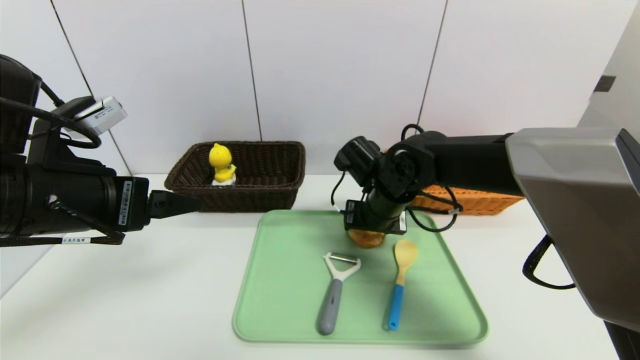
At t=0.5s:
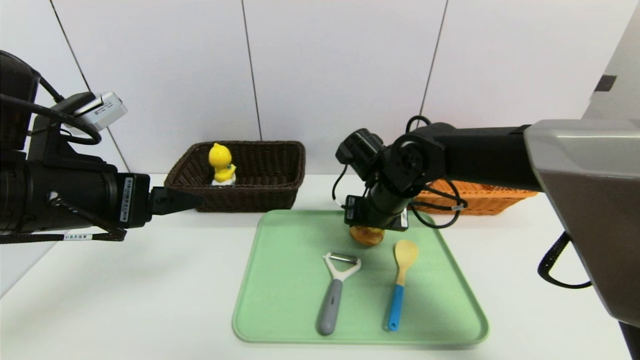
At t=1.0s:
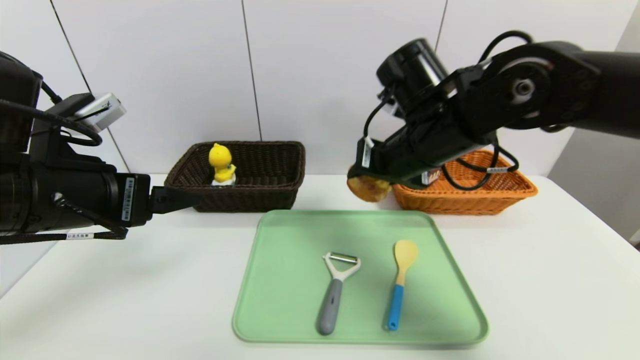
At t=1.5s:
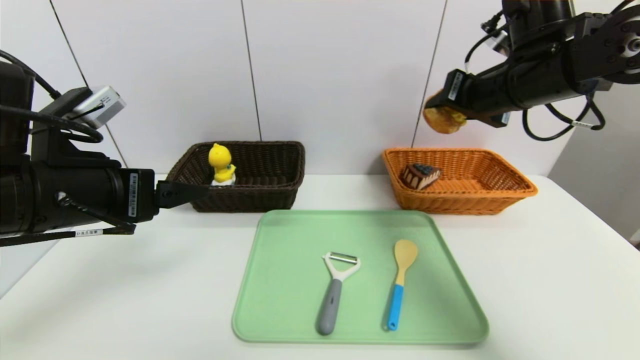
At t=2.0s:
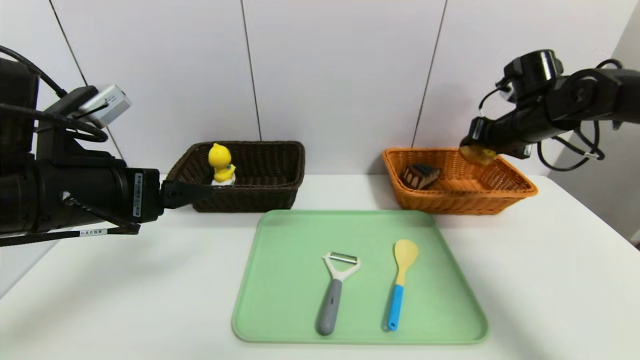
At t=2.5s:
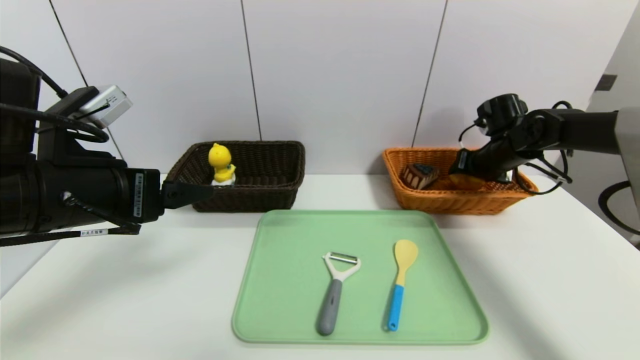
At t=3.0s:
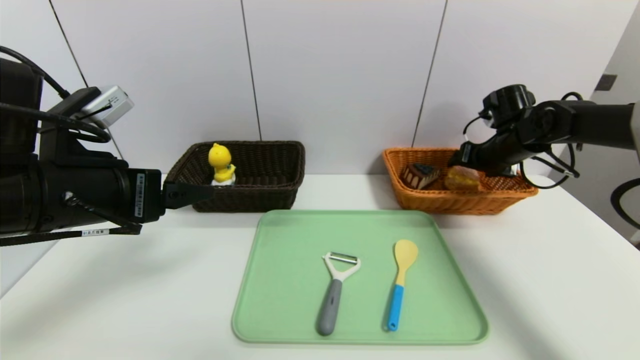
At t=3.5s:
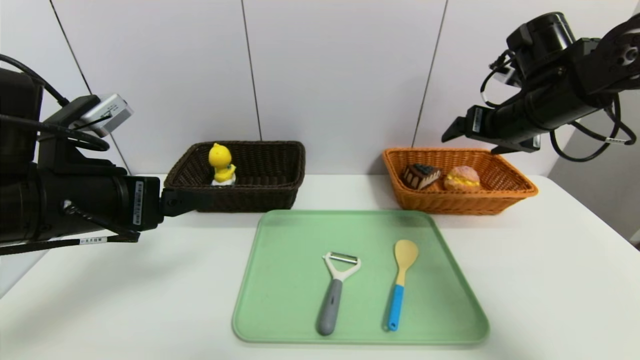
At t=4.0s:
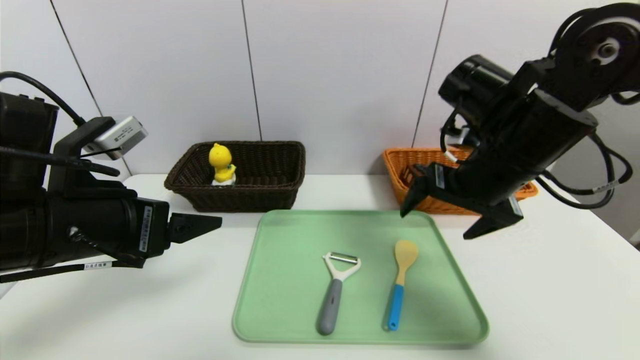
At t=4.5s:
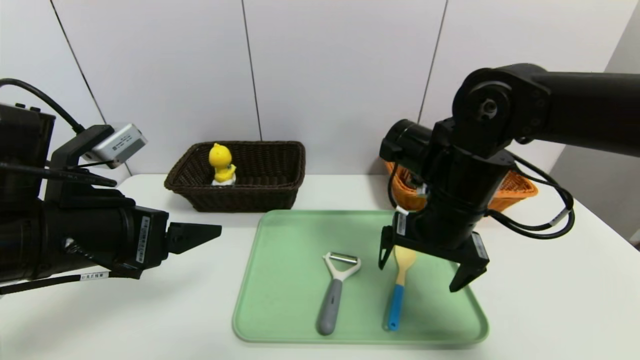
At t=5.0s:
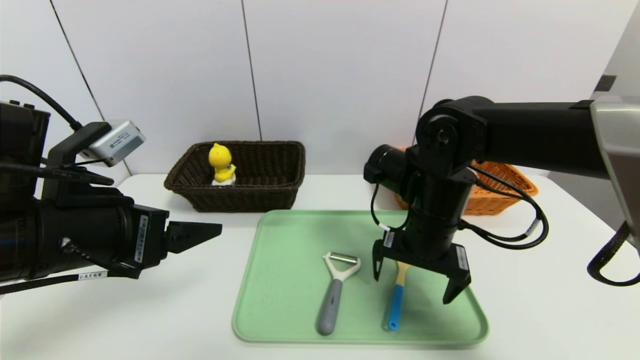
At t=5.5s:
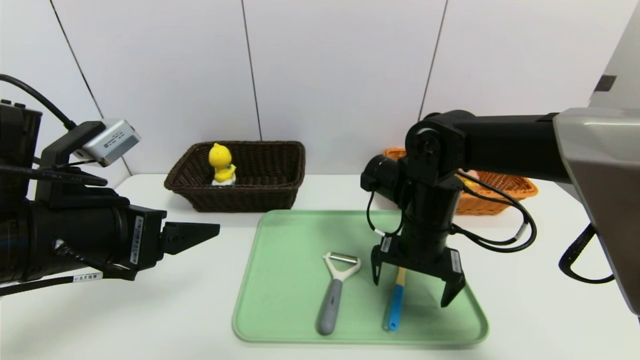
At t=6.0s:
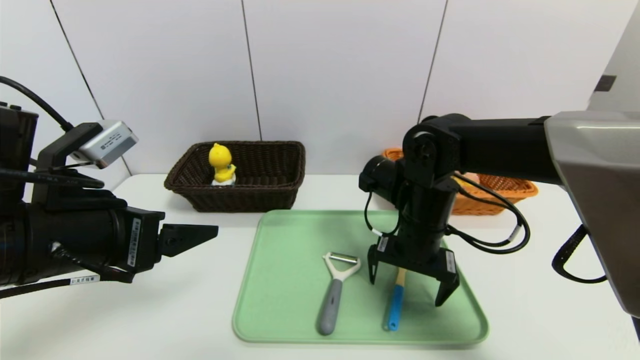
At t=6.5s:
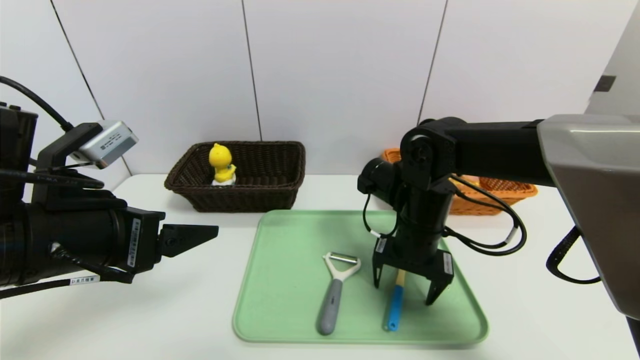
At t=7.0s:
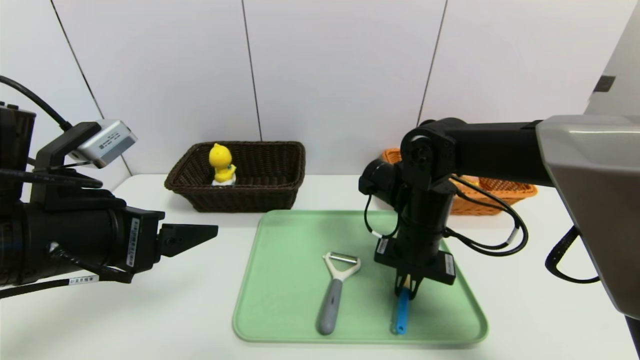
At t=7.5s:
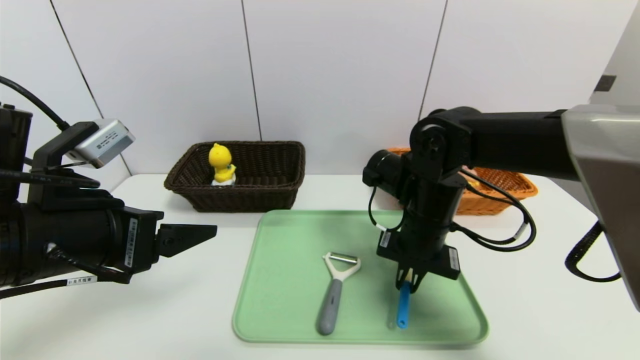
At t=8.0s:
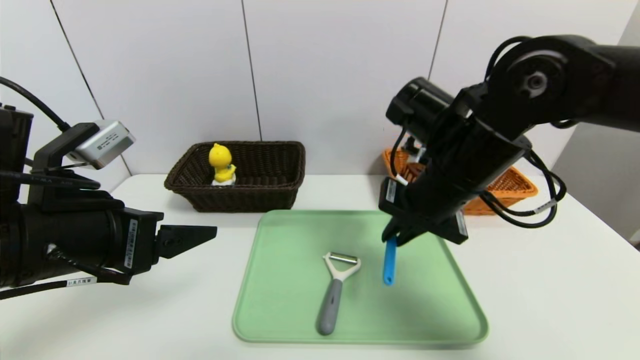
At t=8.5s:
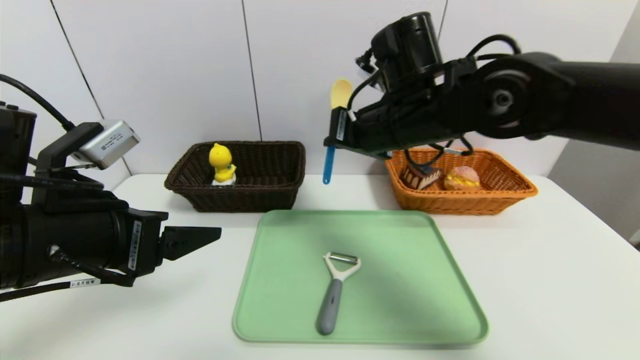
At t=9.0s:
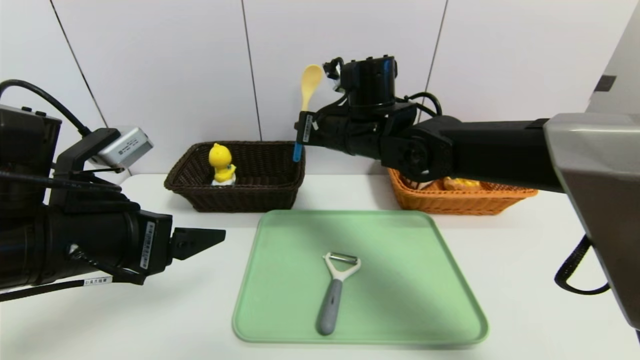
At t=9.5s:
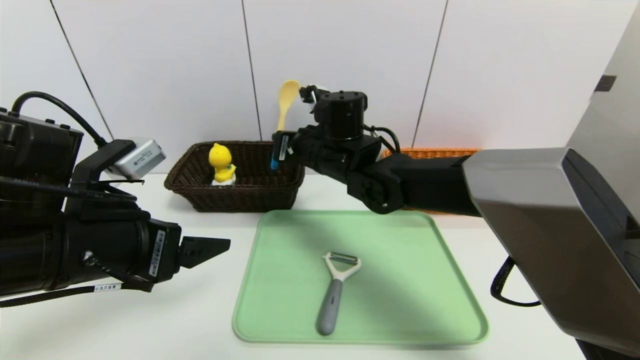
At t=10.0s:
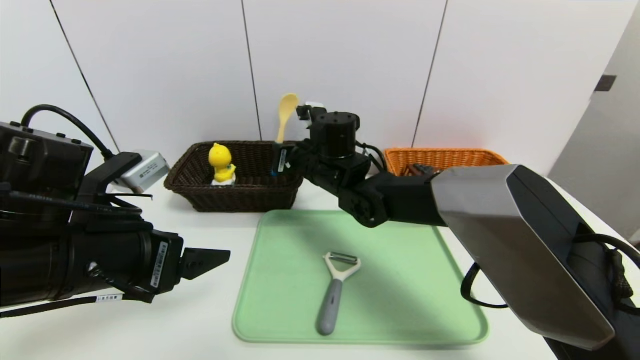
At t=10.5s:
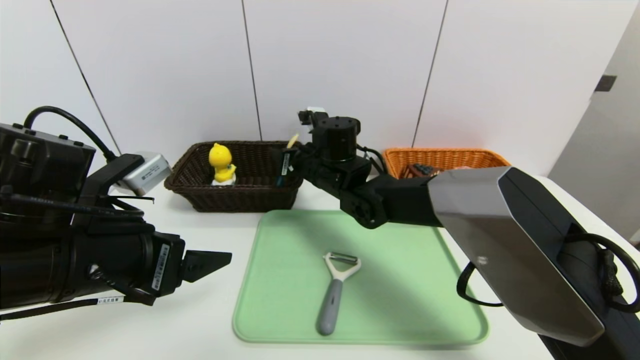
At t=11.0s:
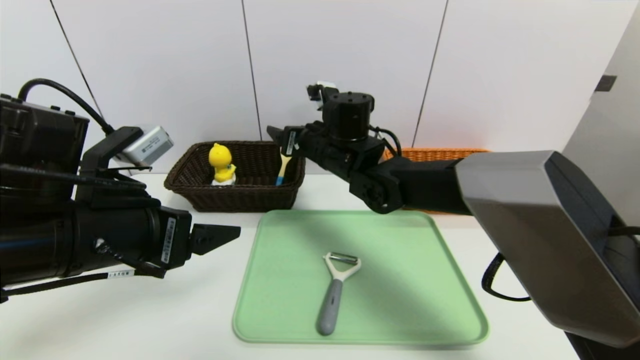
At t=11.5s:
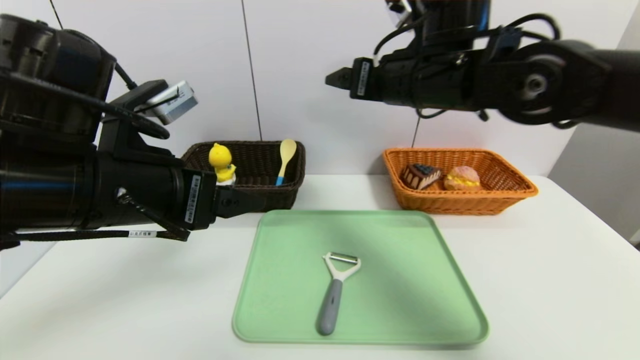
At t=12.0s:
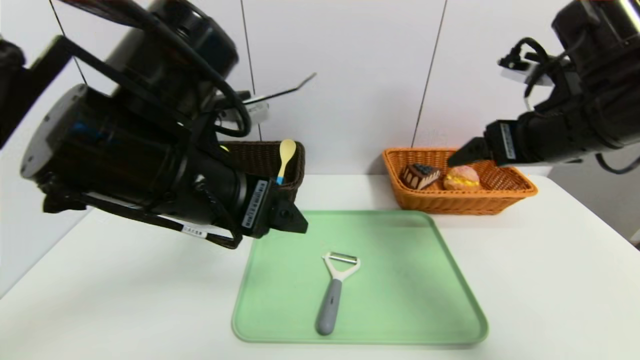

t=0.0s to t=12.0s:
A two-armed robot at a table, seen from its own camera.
Task of the whole recording: place the food in the right basket with the right gripper, and place the non food items in the left basket with the left gripper.
Step, t=0.0s to t=3.0s: Grasp the round bread and put it in the right basket.
t=0.0s to t=2.0s: The right gripper shifts roughly 25 cm to the right.
t=2.0s to t=4.0s: The right gripper heads backward and to the left, covering approximately 20 cm, and opens up.
t=4.0s to t=6.0s: The right gripper travels downward and to the left by about 10 cm.
t=6.0s to t=8.0s: The right gripper heads upward, covering roughly 10 cm, and closes.
t=8.0s to t=10.0s: The right gripper moves to the left, forward and downward, some 20 cm.
t=10.0s to t=12.0s: The left gripper is displaced to the right and upward by approximately 10 cm, while the right gripper travels to the right, backward and upward by roughly 30 cm, and opens its fingers.

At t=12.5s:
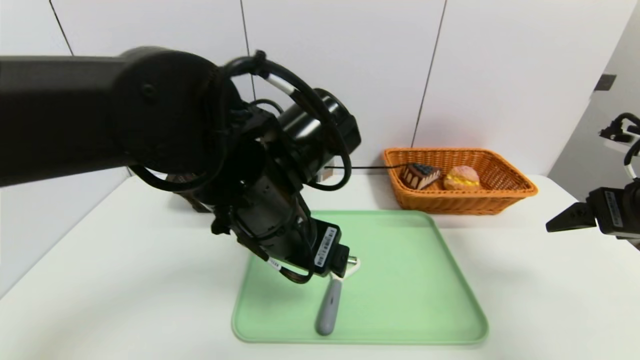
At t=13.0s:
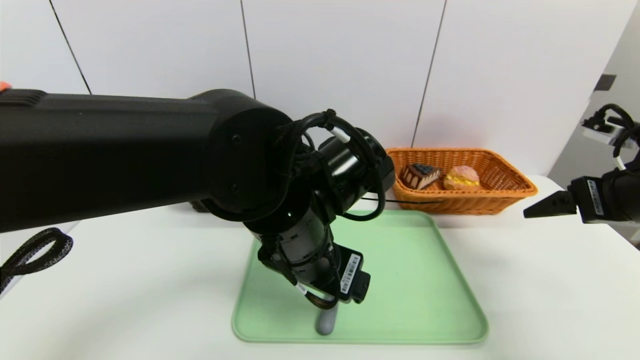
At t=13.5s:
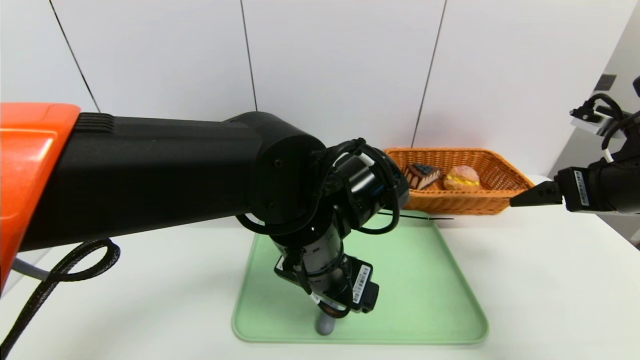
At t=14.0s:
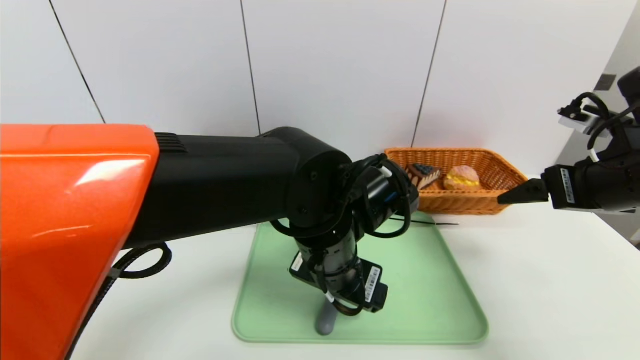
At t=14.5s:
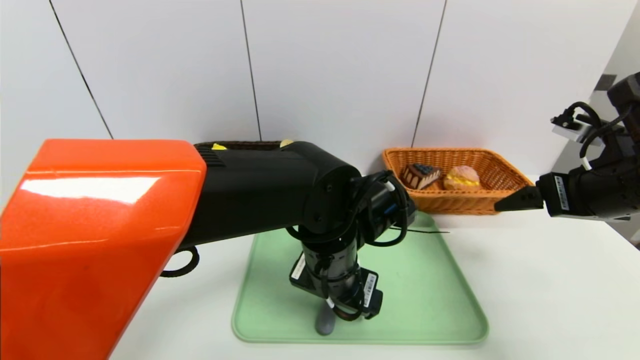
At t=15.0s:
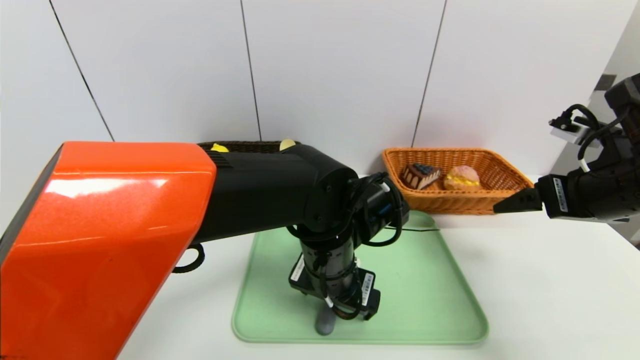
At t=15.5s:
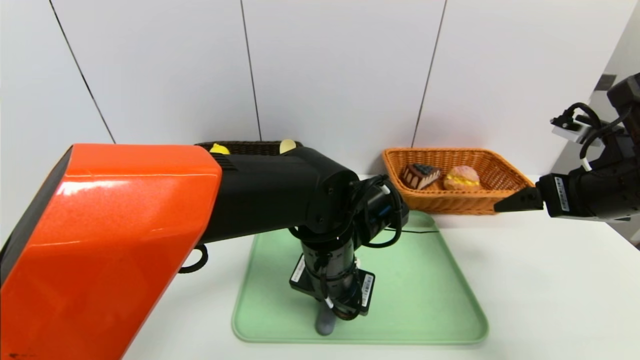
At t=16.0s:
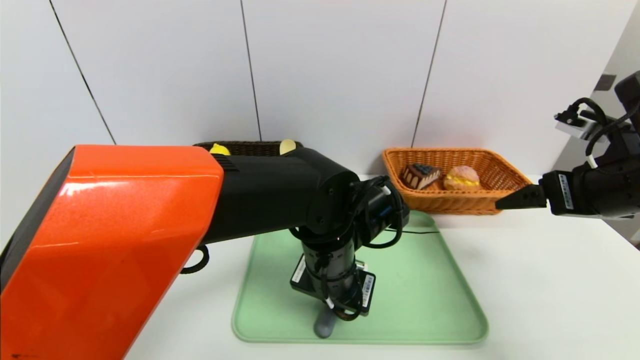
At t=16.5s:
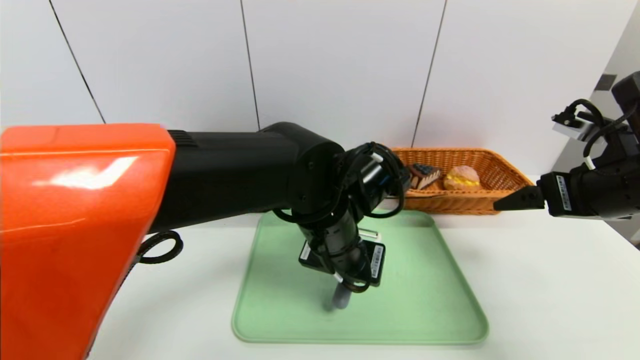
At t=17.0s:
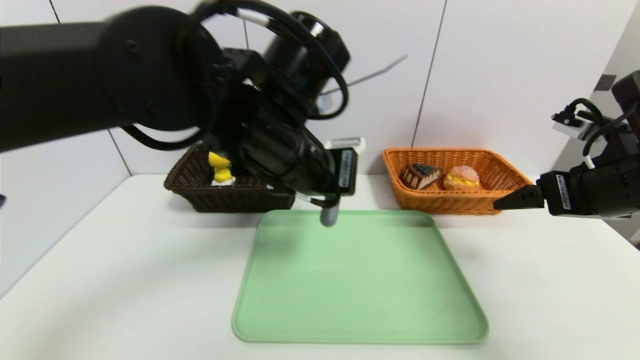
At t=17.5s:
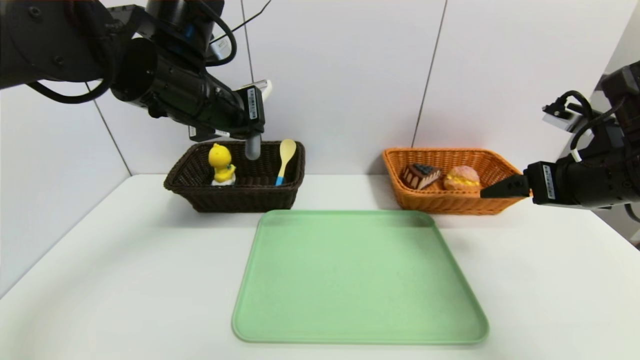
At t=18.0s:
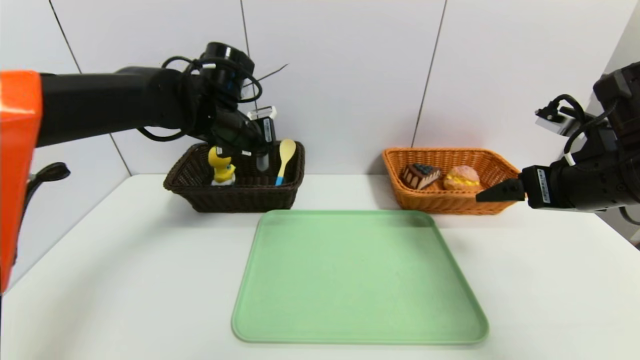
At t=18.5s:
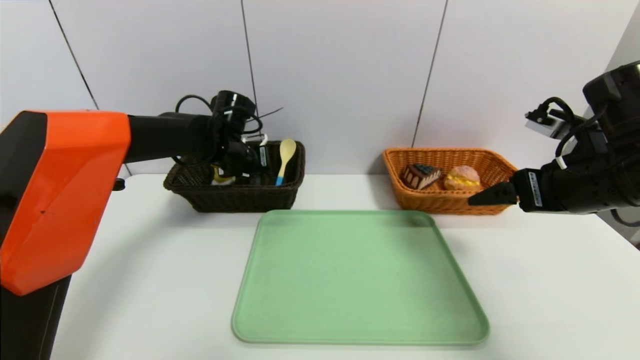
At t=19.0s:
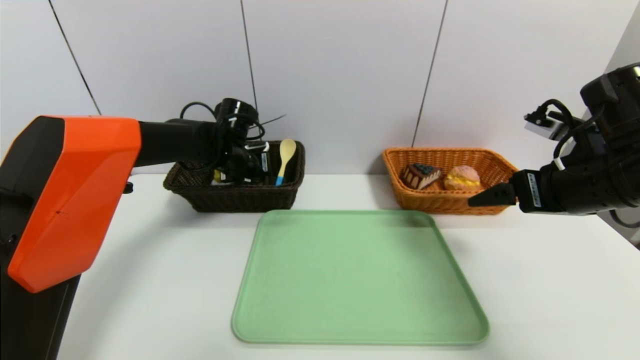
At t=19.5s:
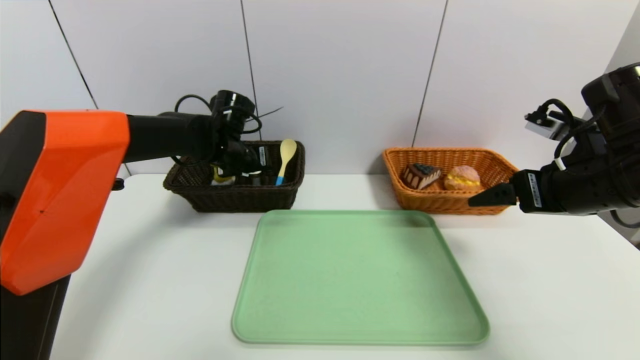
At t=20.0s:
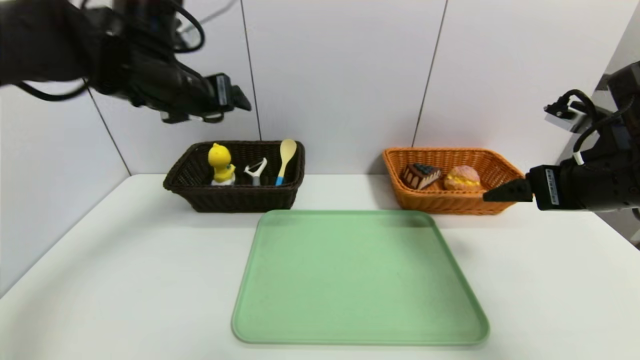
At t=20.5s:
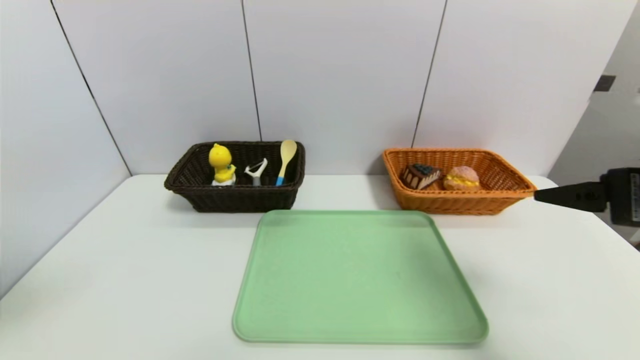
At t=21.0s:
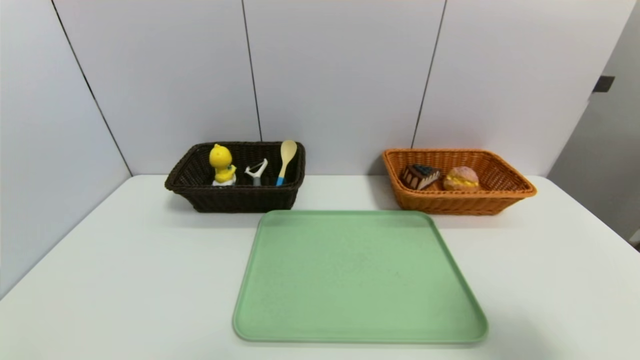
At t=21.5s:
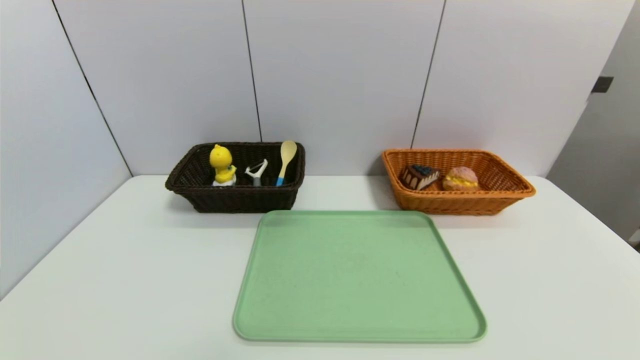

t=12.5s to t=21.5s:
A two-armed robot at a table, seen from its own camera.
Task of the whole recording: place the food in the right basket with the right gripper, and place the non food items in the left basket with the left gripper.
Step, t=12.5s to t=19.5s: Grasp the peeler and put it in the left basket.
t=12.5s to t=14.5s: The left gripper travels downward and to the right by about 10 cm.
t=14.5s to t=17.0s: The left gripper heads upward and to the left, covering some 15 cm, and closes up.
t=17.0s to t=19.5s: The left gripper shifts roughly 25 cm forward, to the left and downward, and opens its fingers.
t=19.5s to t=21.5s: The right gripper travels backward by about 30 cm, while the left gripper travels backward by about 60 cm.
